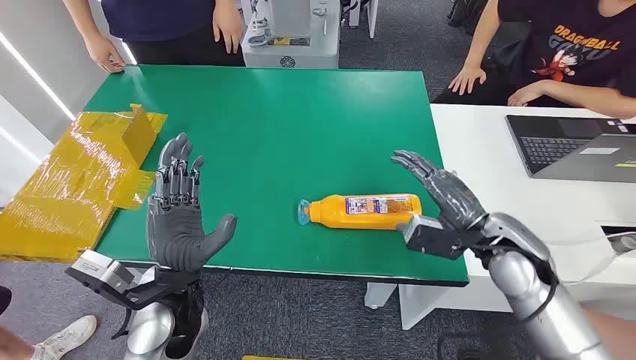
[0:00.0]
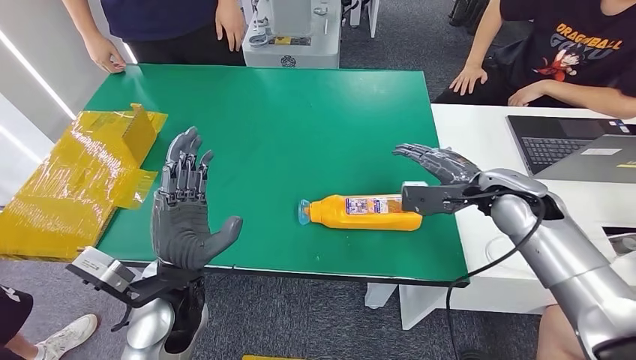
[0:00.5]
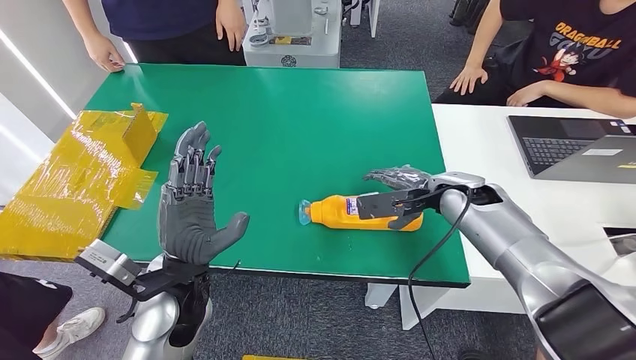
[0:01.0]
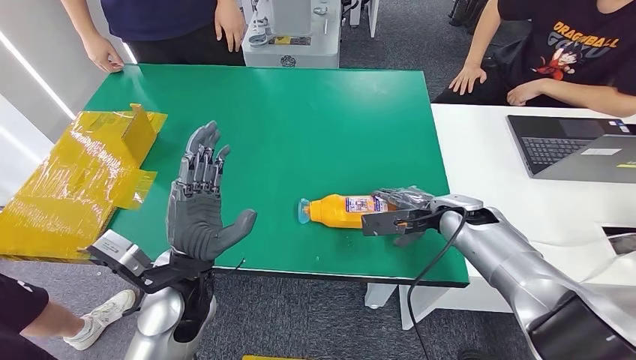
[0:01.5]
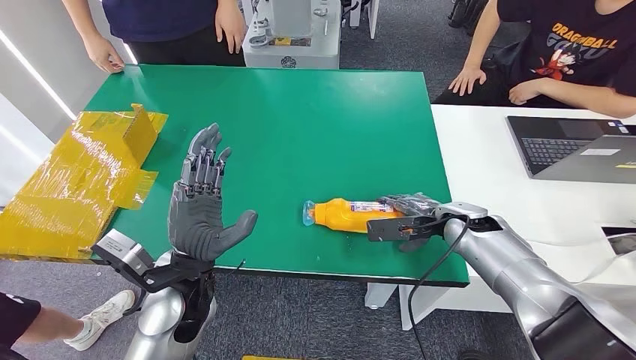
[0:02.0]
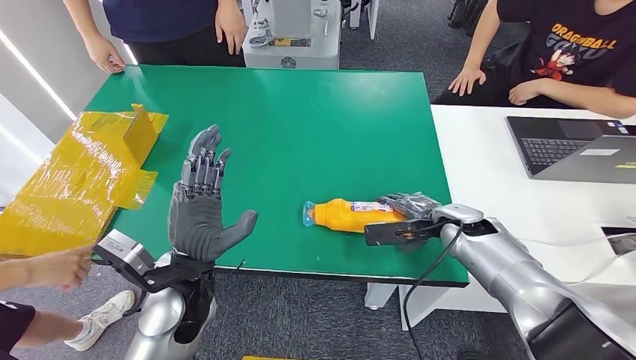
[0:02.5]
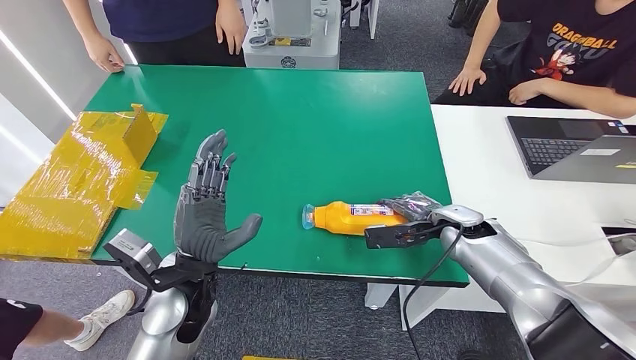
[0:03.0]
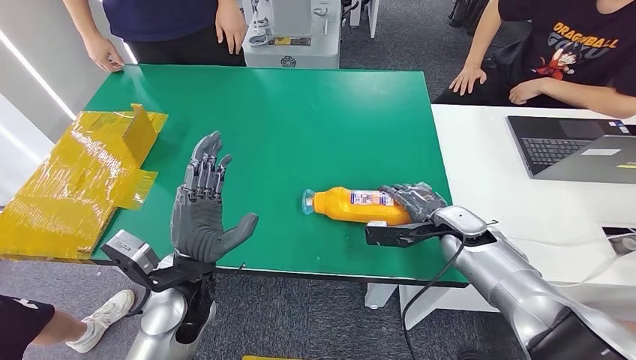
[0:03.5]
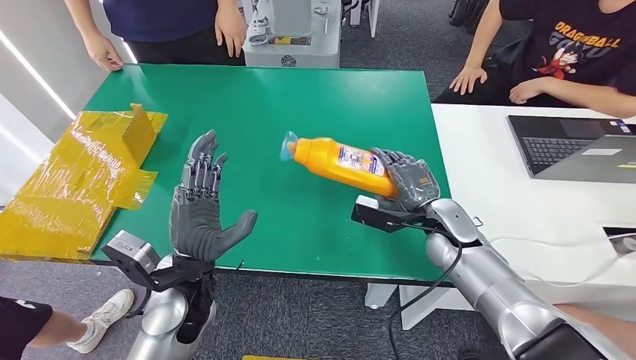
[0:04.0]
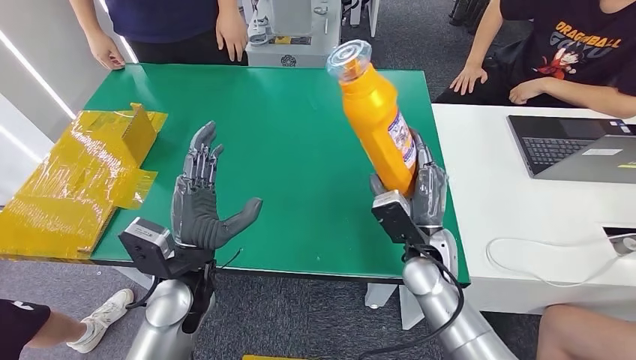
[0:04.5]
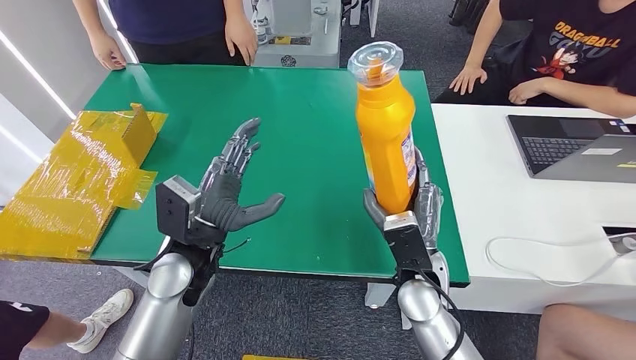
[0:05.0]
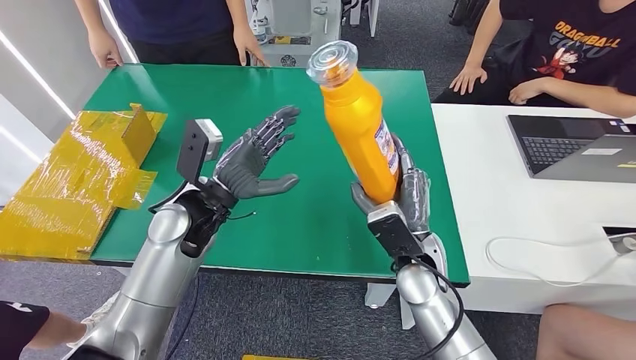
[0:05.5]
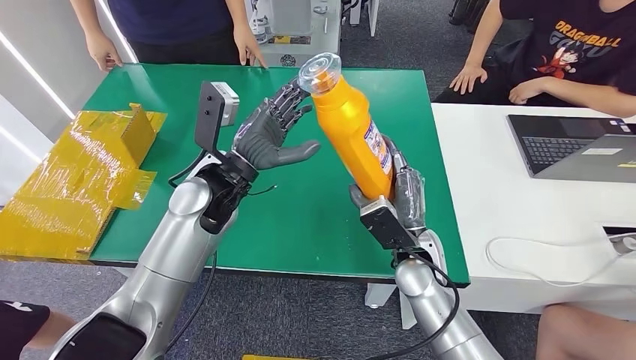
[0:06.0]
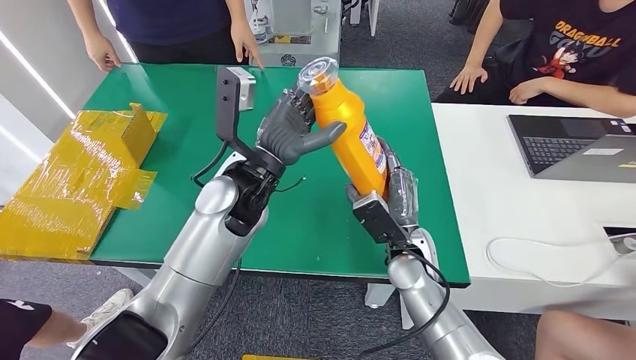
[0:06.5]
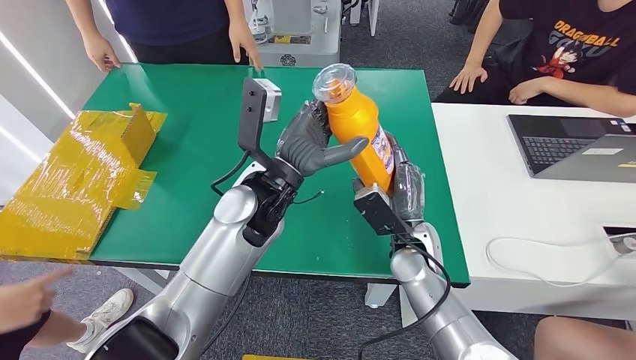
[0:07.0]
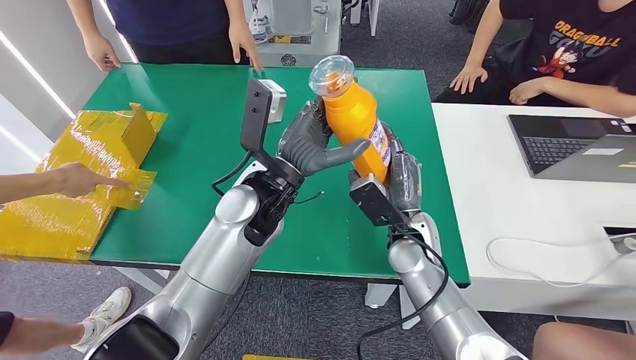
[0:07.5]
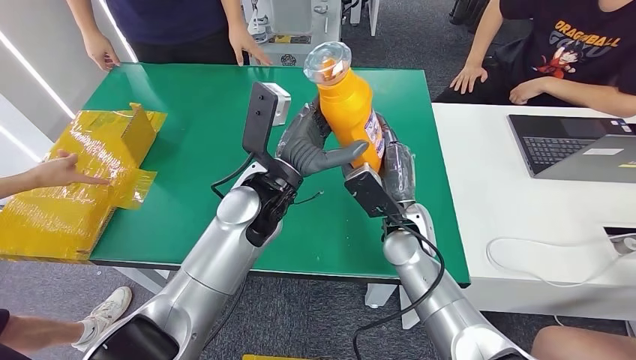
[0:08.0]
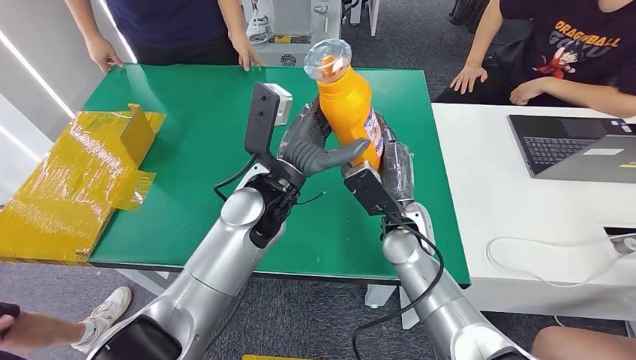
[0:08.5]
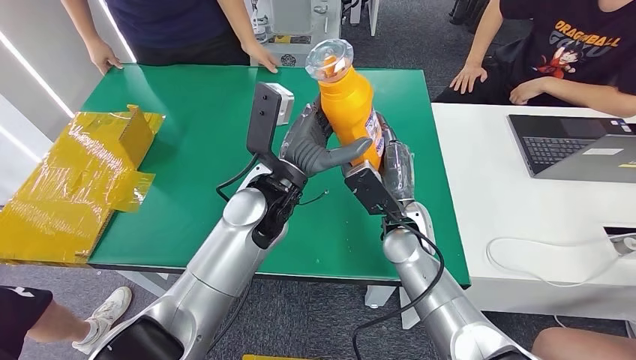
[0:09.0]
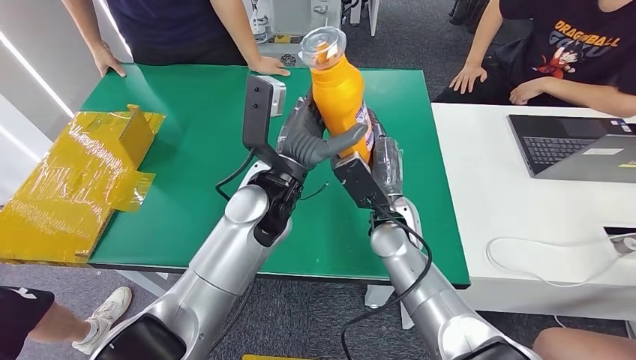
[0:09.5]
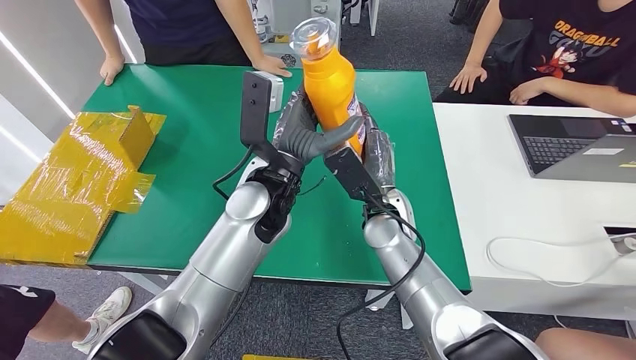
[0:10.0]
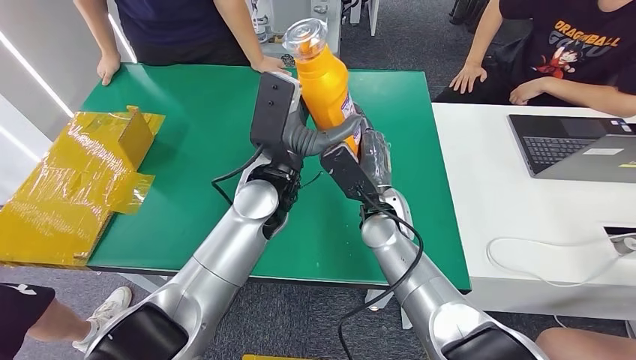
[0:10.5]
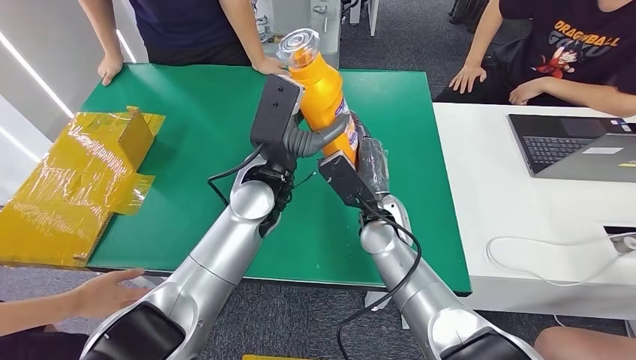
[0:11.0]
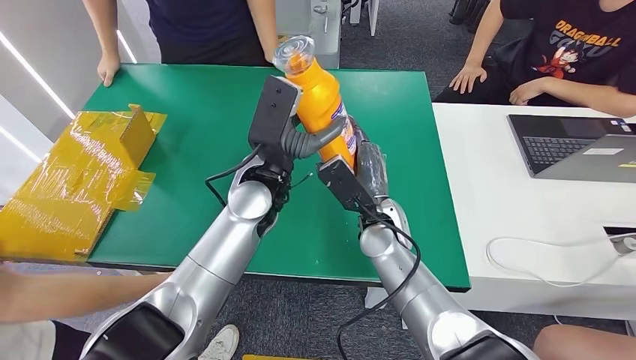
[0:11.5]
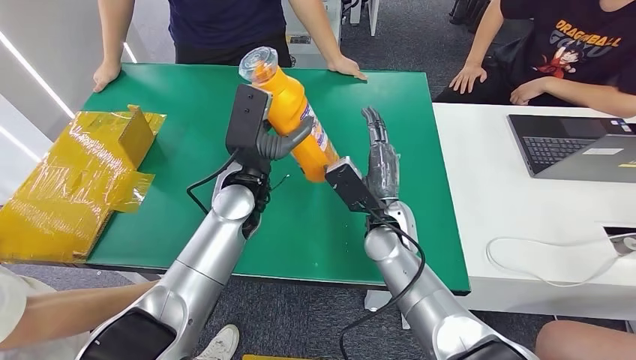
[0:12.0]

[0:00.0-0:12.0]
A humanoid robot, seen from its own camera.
Step, 0:00.0 to 0:04.5: Pick up the bottle from the table.
0:02.0 to 0:04.0: The right hand is displaced to the left by about 5 cm.

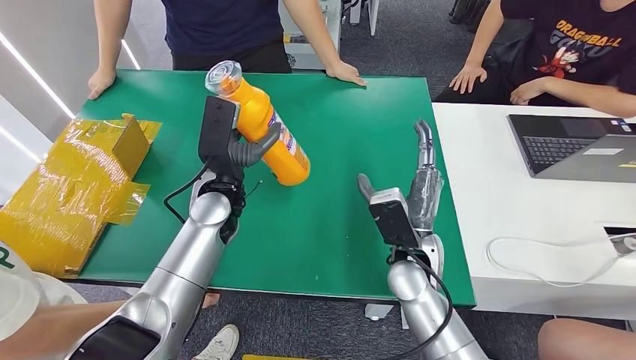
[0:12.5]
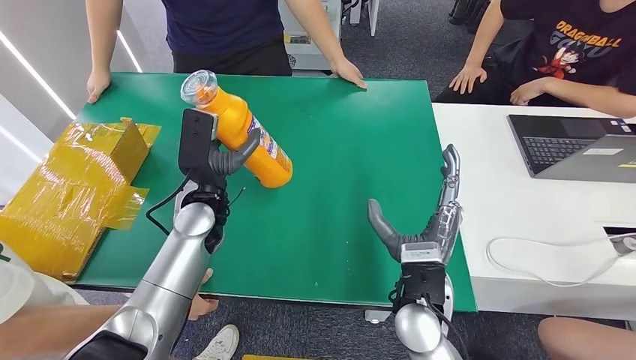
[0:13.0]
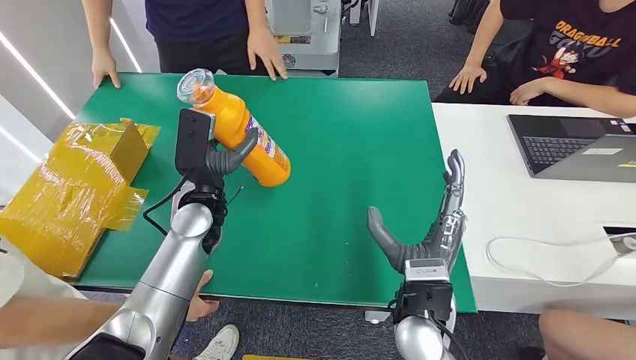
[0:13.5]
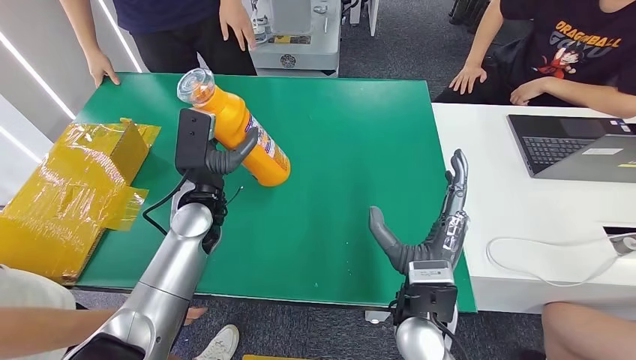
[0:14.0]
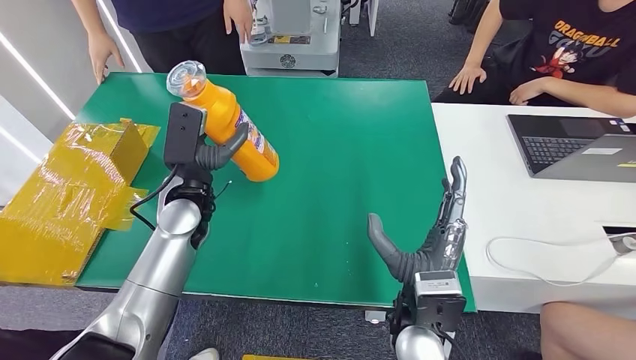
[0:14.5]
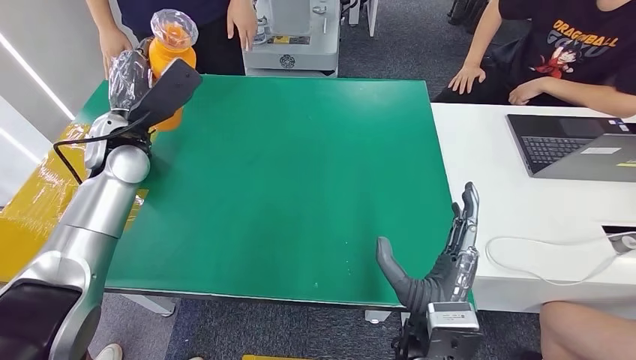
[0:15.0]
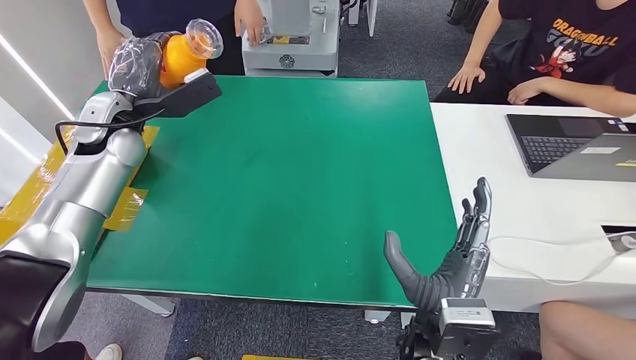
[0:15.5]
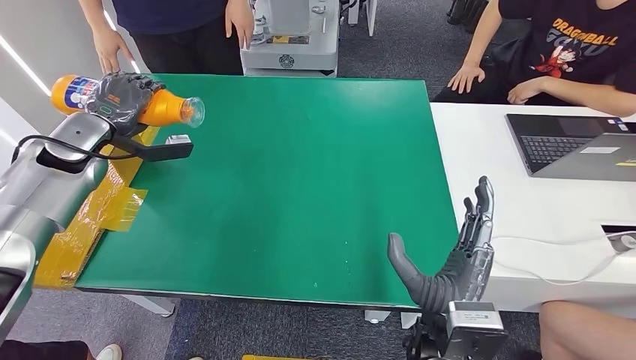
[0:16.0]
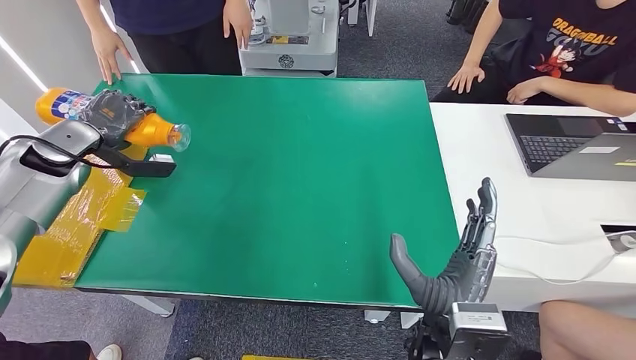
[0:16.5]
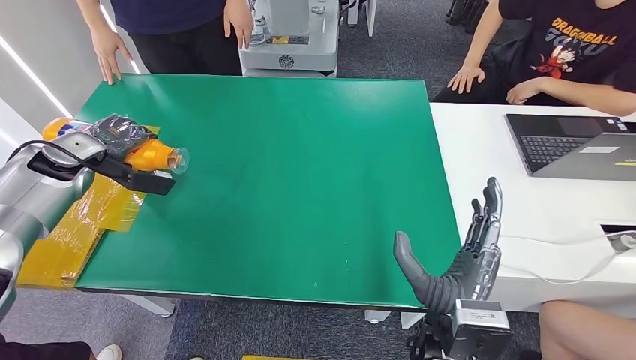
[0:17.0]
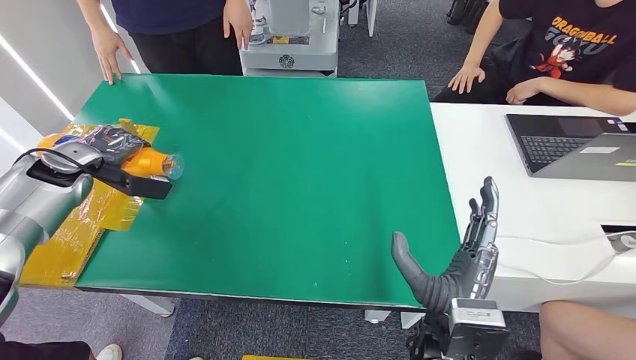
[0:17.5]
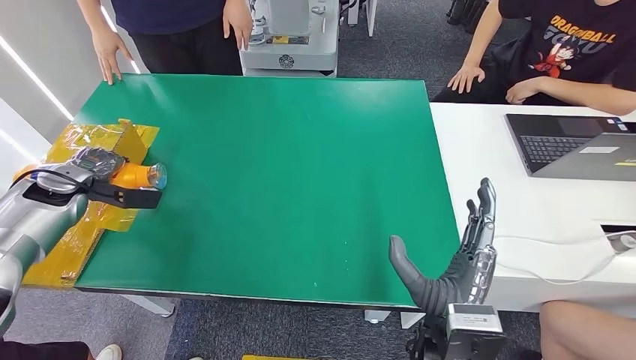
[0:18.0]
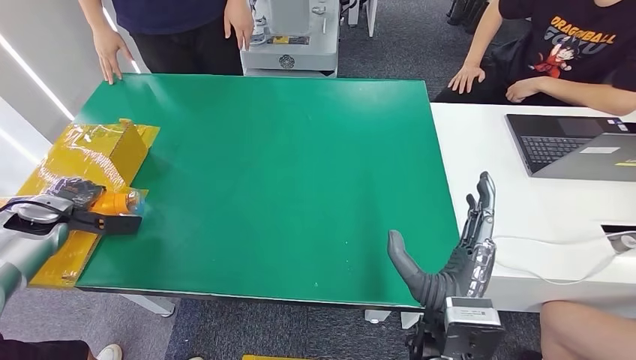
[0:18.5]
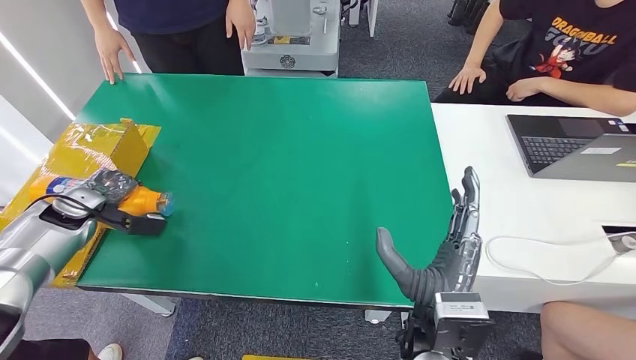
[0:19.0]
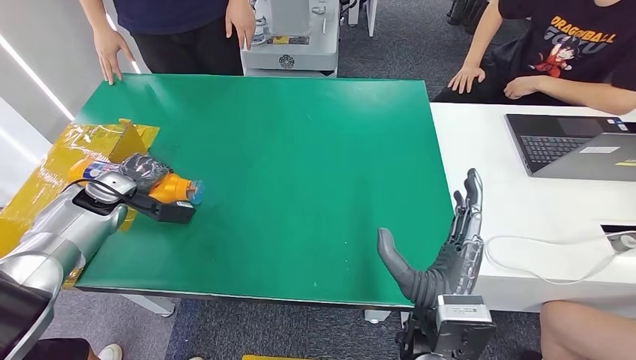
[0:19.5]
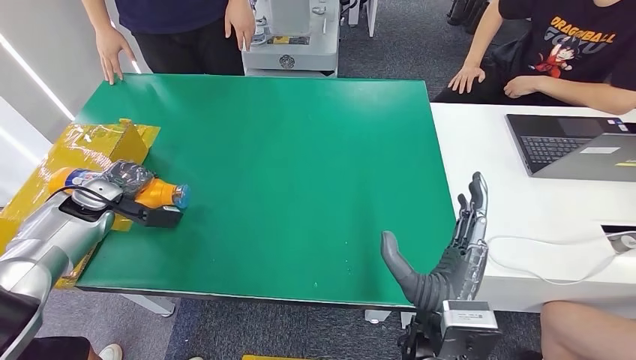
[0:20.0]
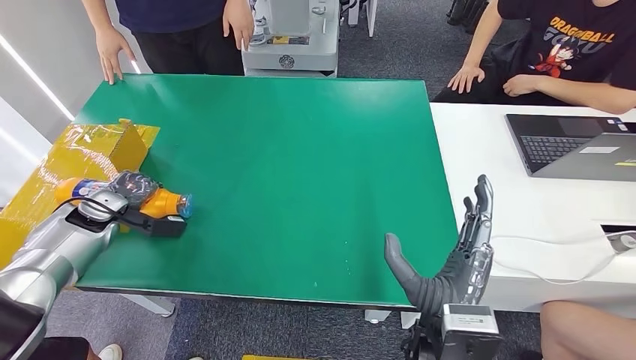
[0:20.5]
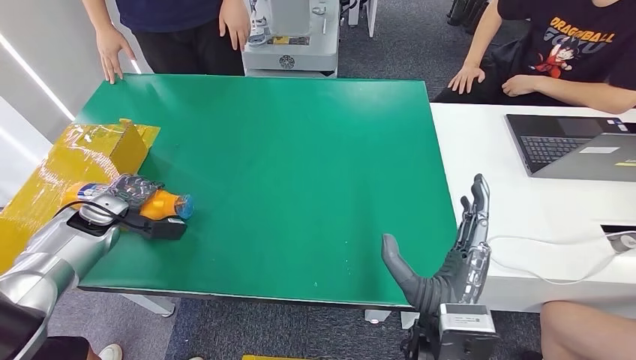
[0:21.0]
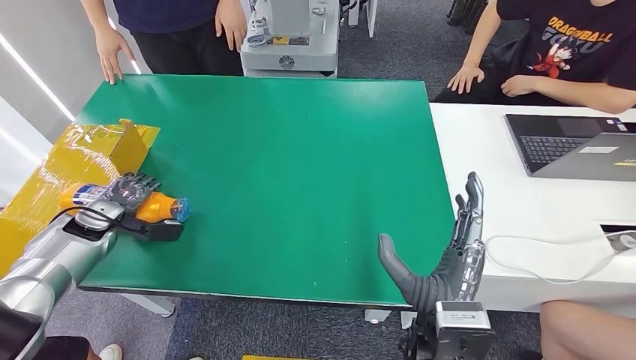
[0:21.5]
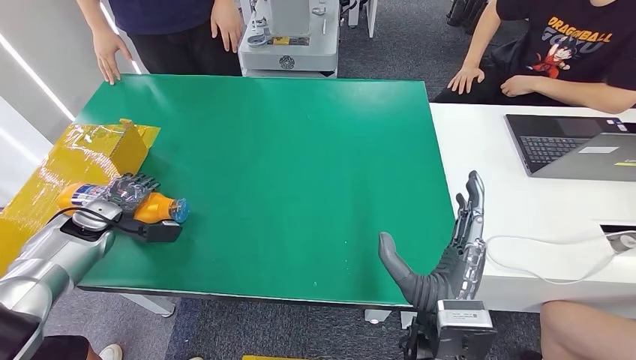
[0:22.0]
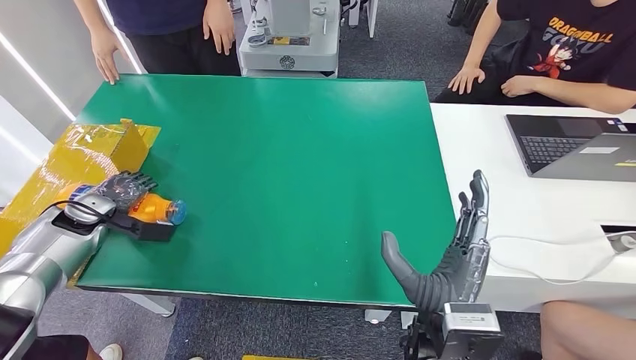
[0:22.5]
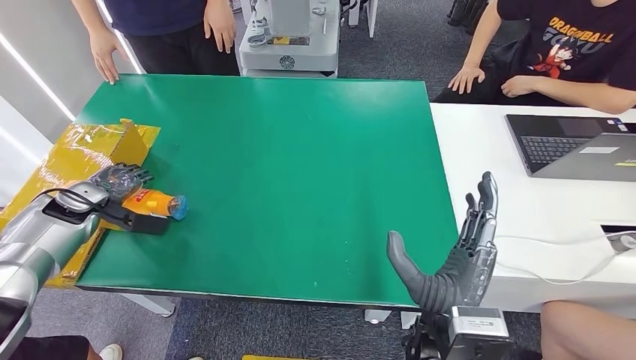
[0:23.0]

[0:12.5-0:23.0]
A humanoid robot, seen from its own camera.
0:16.5 to 0:19.0: The left hand shifts some 15 cm downward and backward.
0:21.0 to 0:23.0: The hands move only a little.
